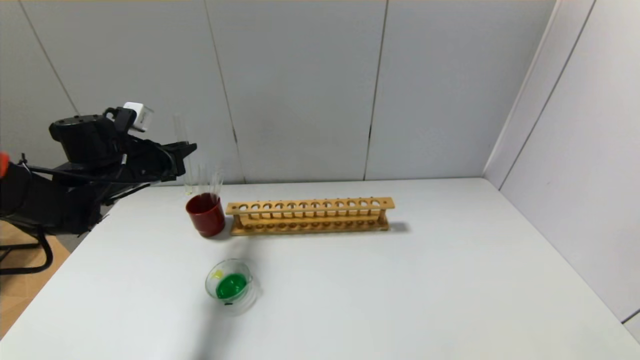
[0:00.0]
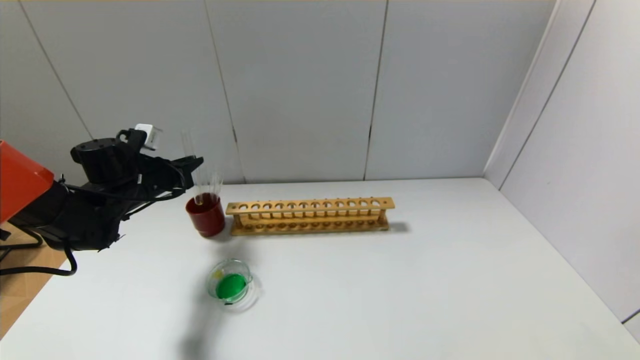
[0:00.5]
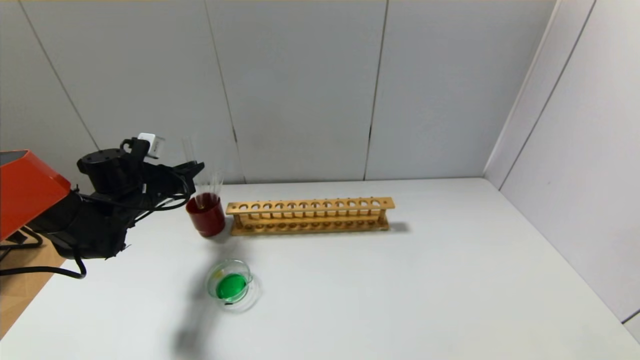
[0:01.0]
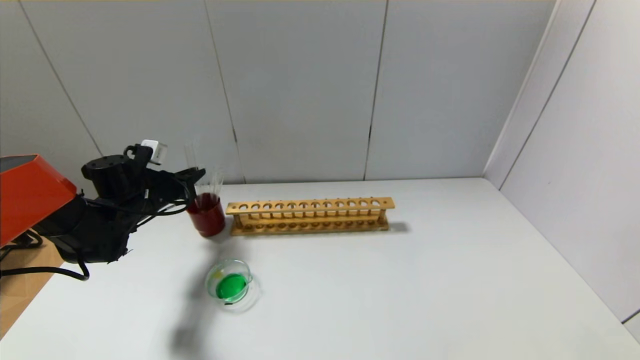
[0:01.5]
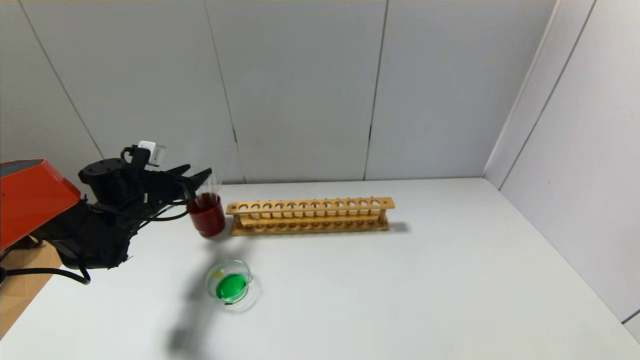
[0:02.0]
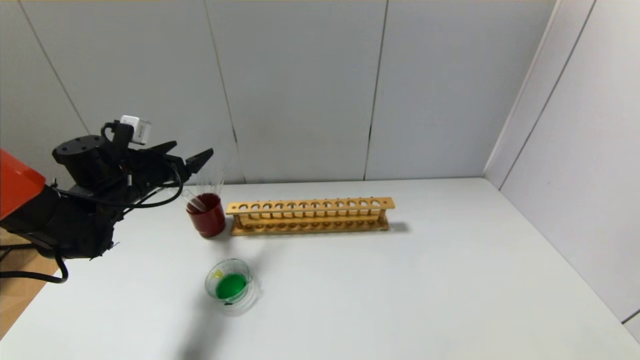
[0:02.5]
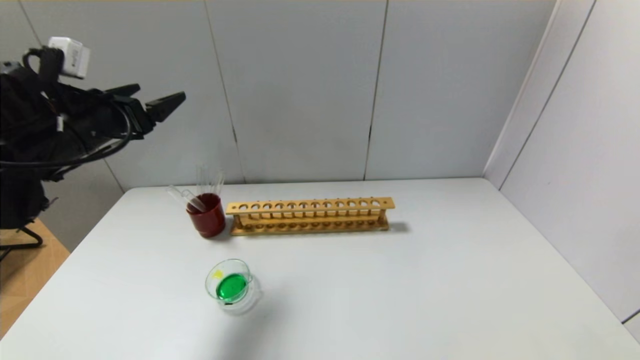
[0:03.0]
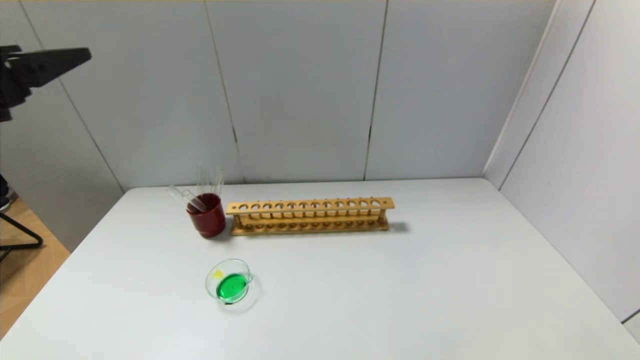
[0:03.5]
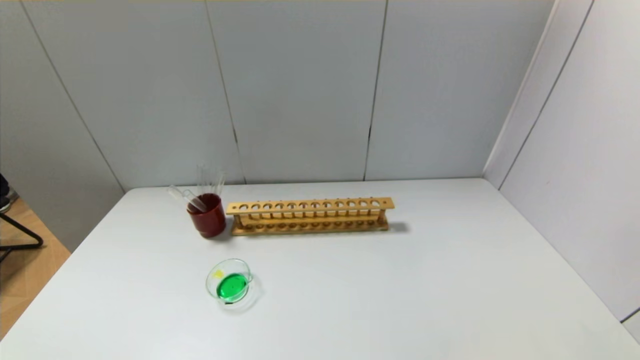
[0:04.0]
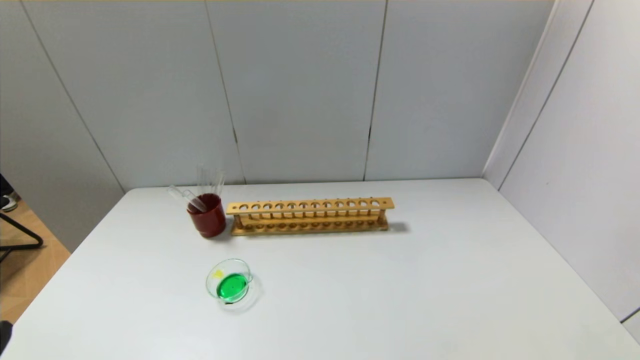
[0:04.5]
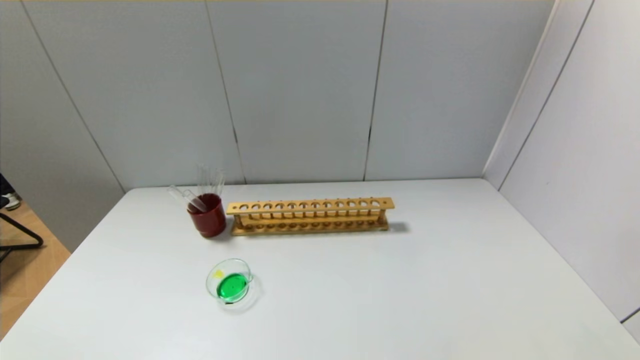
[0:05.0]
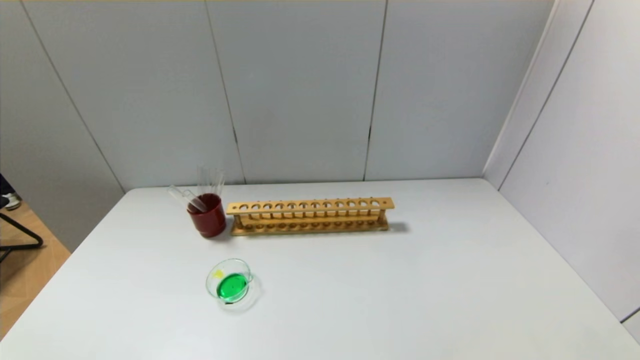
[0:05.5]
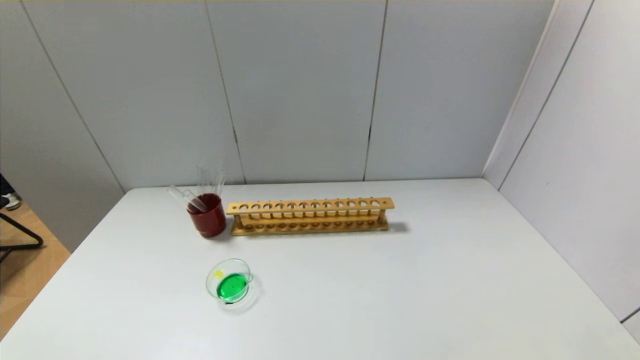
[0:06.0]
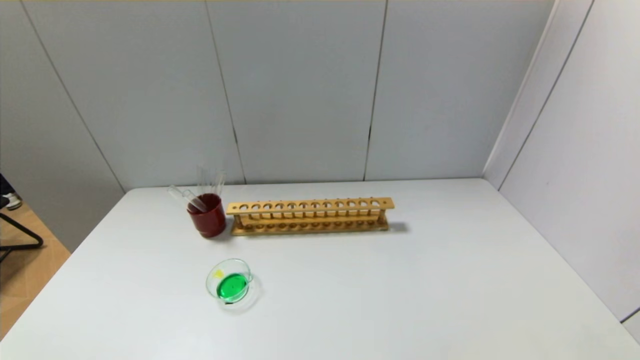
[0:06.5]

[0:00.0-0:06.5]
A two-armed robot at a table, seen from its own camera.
Step, 0:00.0 to 0:02.0: Place the test tube into the brown cup with the left gripper.
0:00.0 to 0:02.0: The left gripper goes roughly 5 cm downward, and opens its fingers.
0:02.0 to 0:04.5: The left gripper goes approximately 40 cm backward, and opens up.

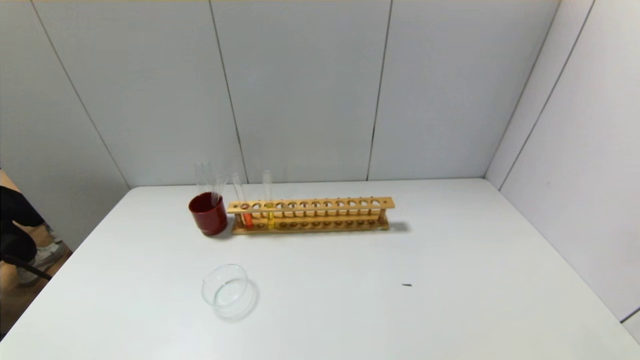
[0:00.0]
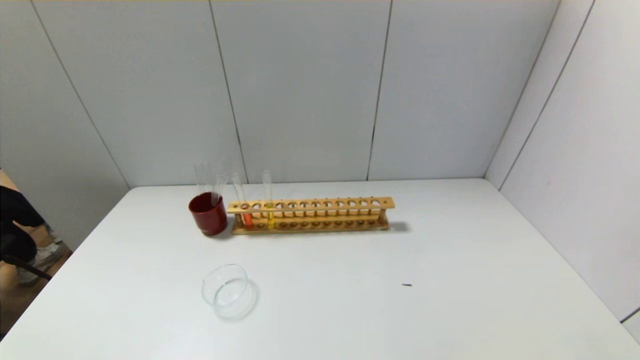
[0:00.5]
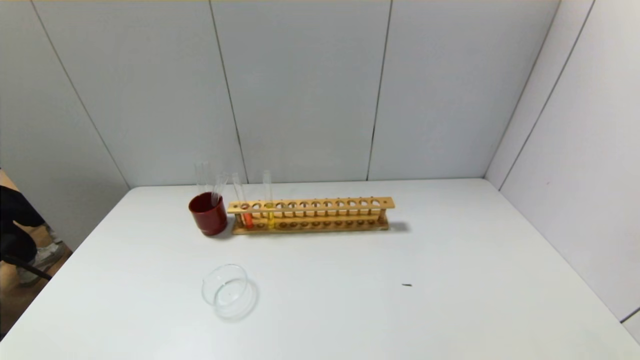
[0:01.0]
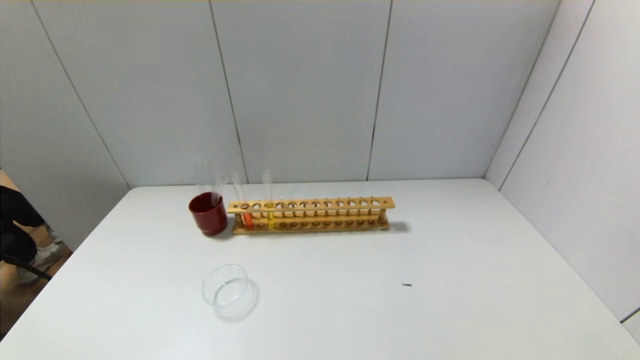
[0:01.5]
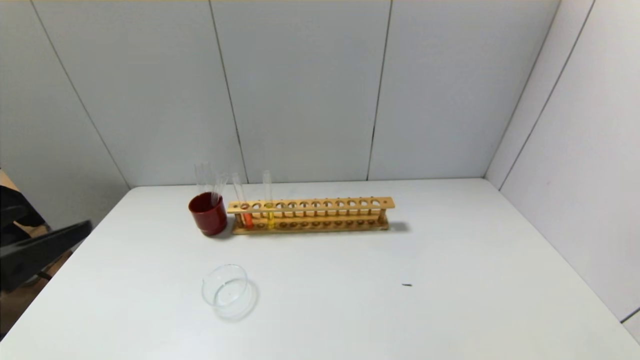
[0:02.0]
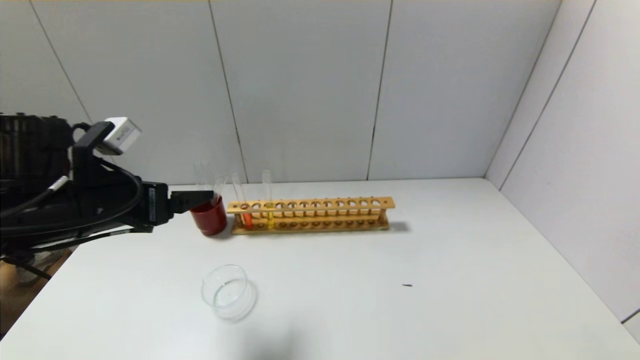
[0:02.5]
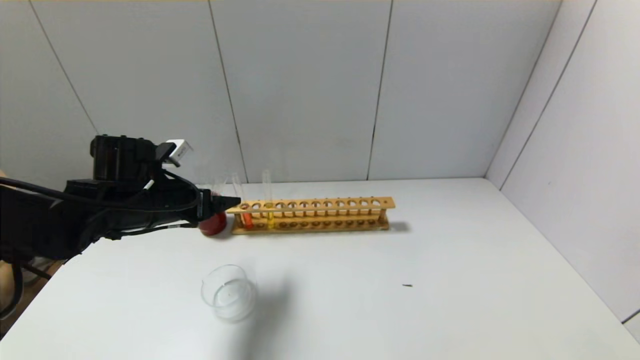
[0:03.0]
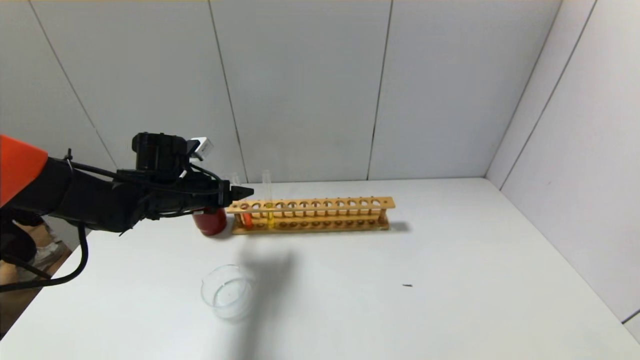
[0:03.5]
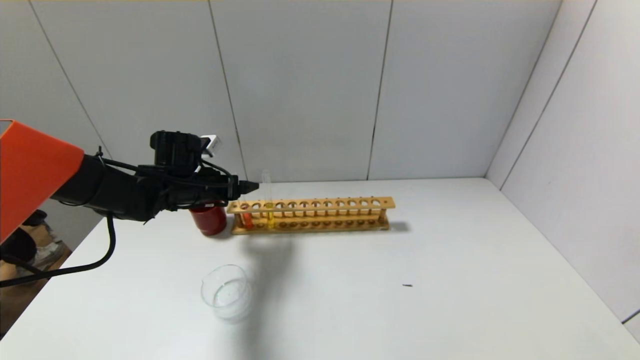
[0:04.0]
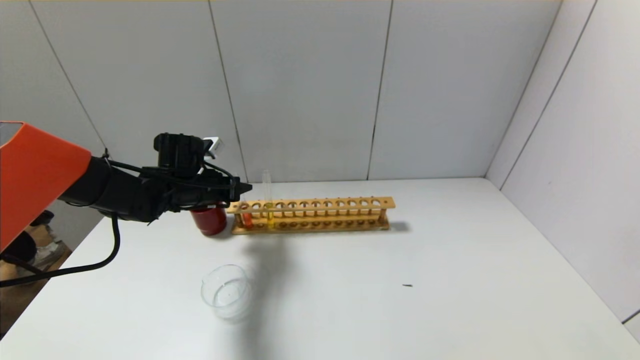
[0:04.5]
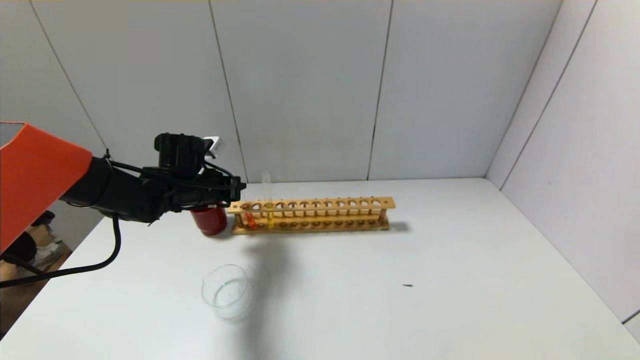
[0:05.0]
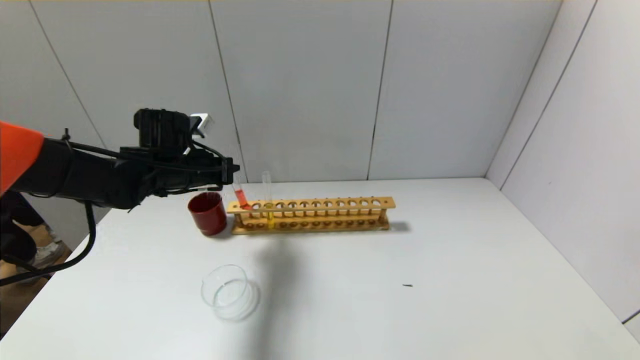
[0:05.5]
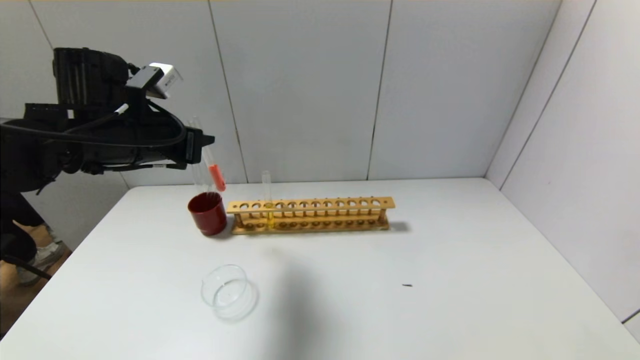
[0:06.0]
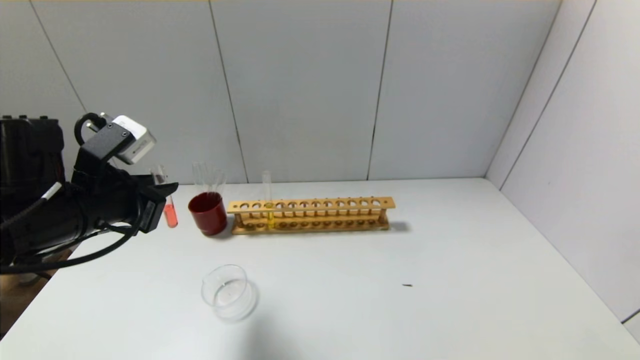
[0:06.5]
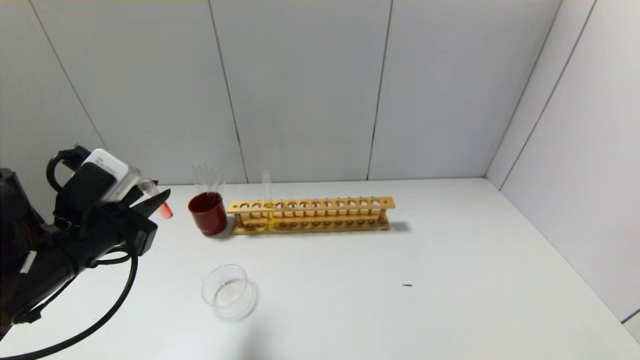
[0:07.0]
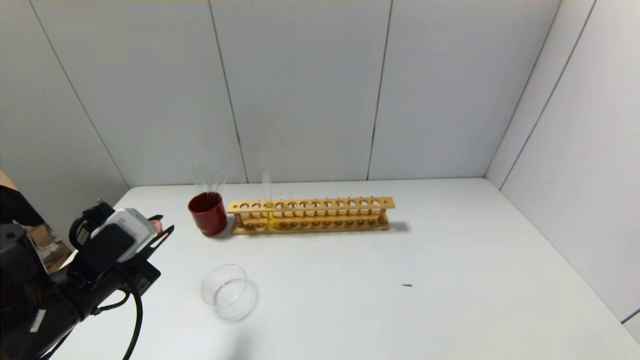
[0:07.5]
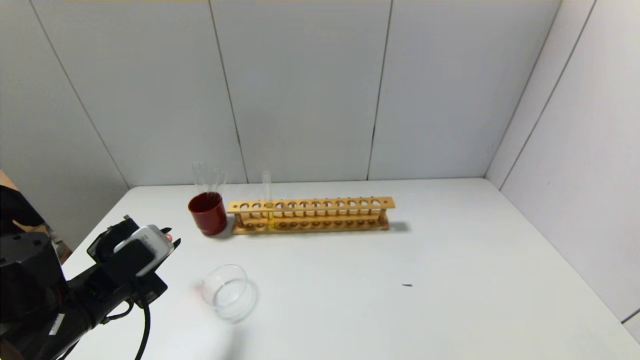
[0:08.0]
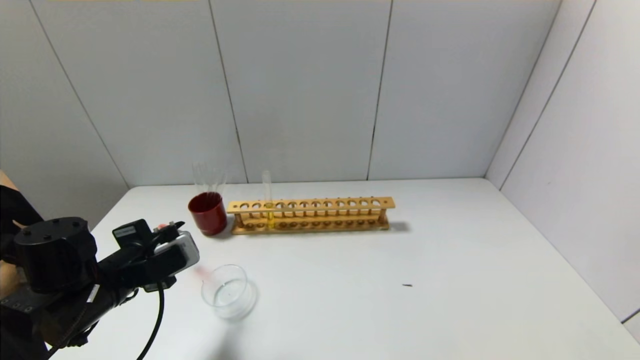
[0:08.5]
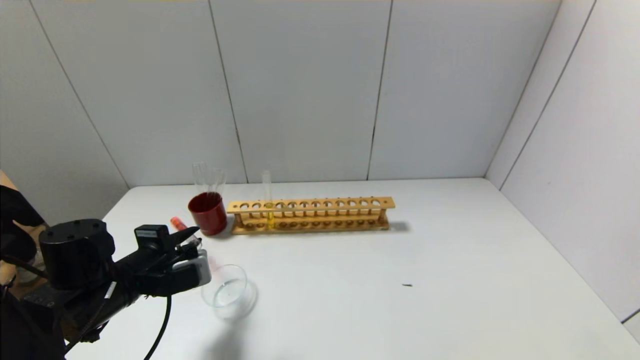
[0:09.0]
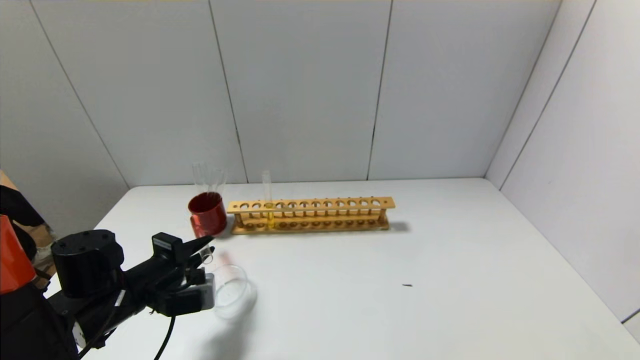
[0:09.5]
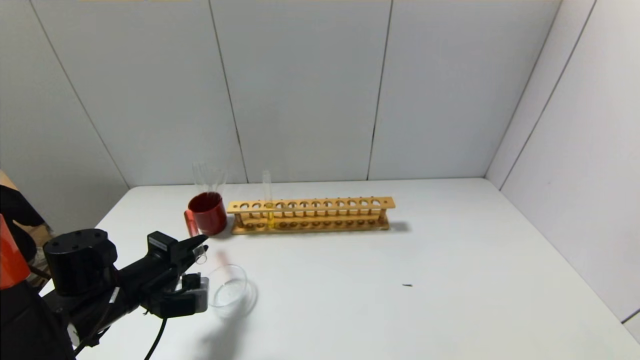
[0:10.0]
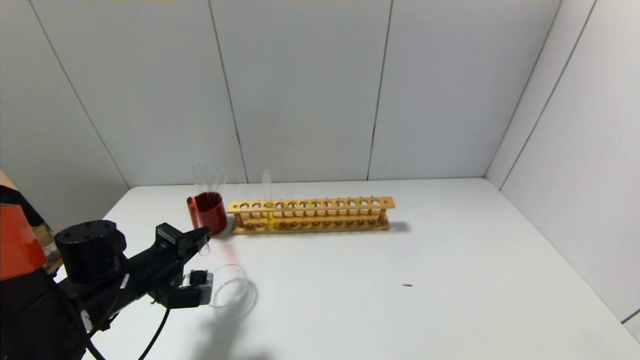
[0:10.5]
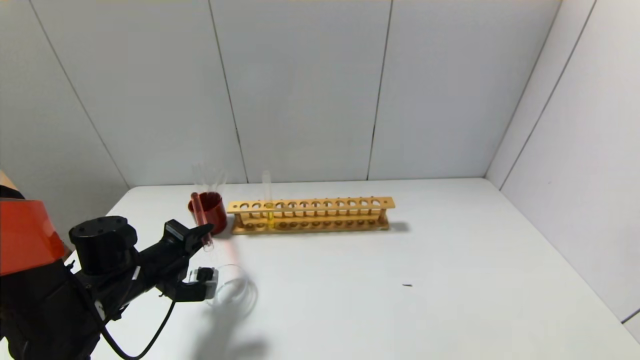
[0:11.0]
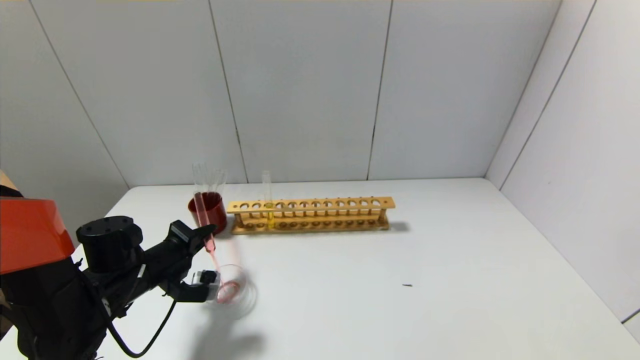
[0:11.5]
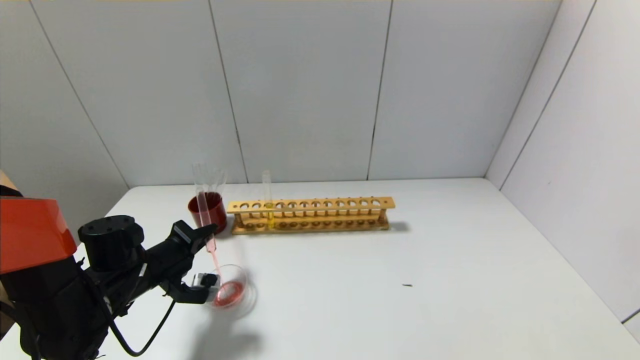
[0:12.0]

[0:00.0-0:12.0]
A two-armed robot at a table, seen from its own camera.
Step, 0:00.0 to 0:04.5: Grasp the red reagent with the left gripper.
0:00.0 to 0:02.0: The left gripper is displaced upward and forward by some 20 cm.
0:02.0 to 0:04.0: The left gripper travels forward by approximately 30 cm.
0:04.0 to 0:06.0: The left gripper shifts about 15 cm upward and backward, and closes up.
0:06.0 to 0:08.0: The left gripper shifts approximately 20 cm downward and backward.
0:08.0 to 0:10.0: The left gripper shifts by roughly 5 cm.

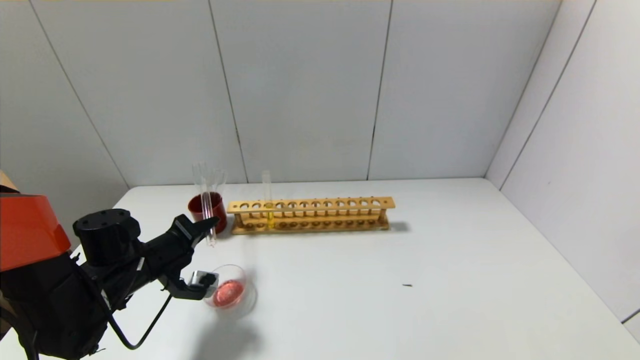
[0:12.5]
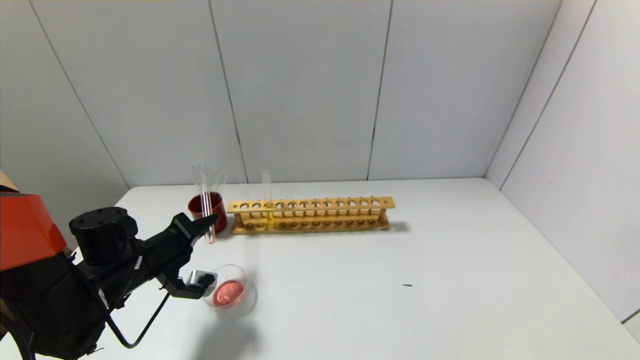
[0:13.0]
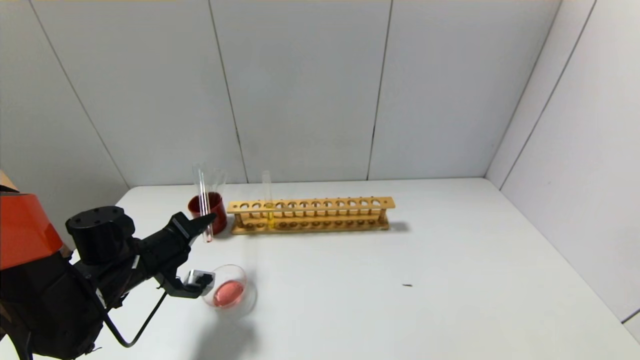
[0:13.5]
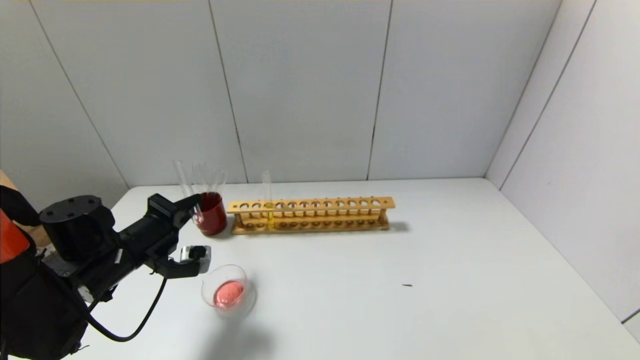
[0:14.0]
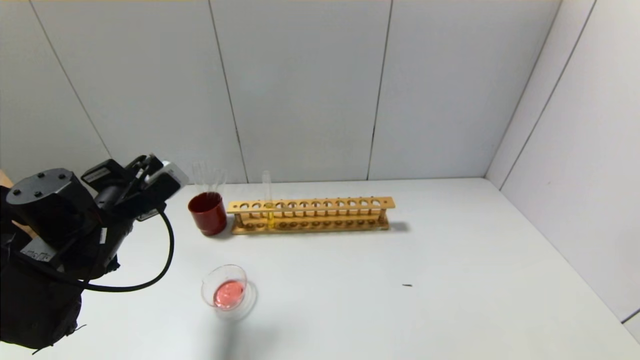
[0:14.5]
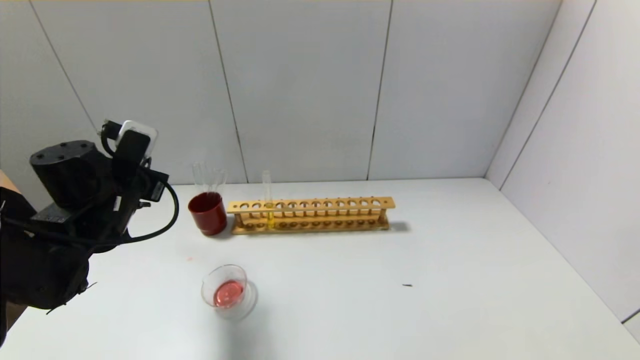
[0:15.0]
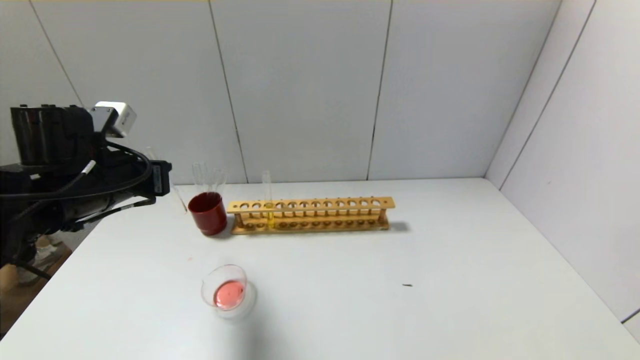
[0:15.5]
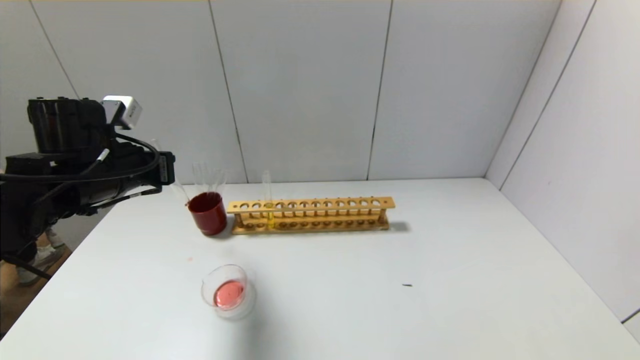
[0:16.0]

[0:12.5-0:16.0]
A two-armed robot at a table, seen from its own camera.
0:12.5 to 0:14.5: The left gripper heads upward, covering roughly 10 cm.
0:14.5 to 0:16.0: The left gripper shifts approximately 5 cm upward.
